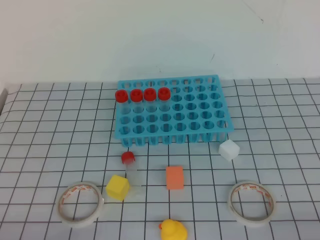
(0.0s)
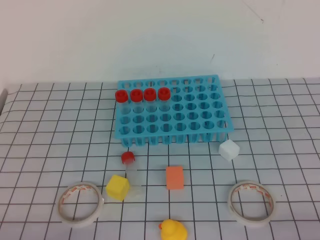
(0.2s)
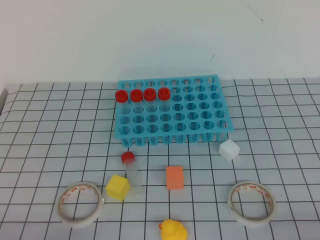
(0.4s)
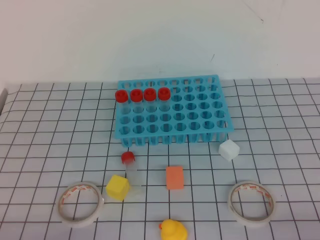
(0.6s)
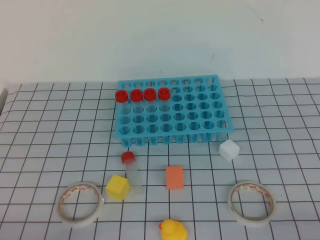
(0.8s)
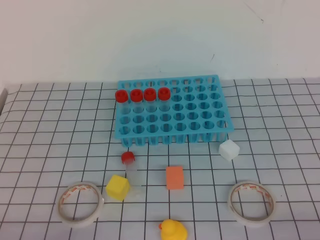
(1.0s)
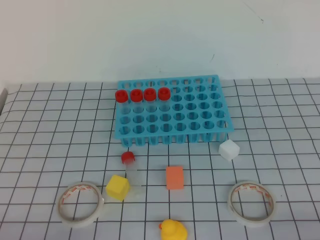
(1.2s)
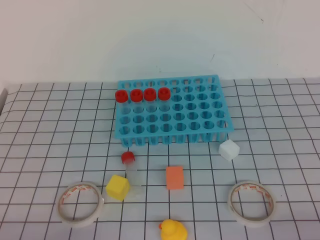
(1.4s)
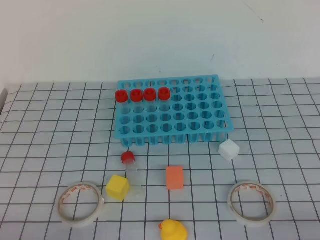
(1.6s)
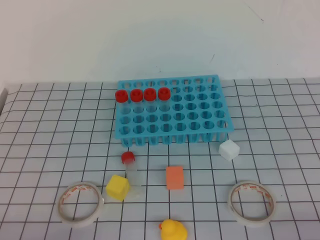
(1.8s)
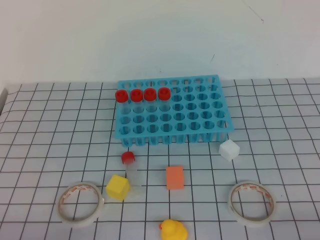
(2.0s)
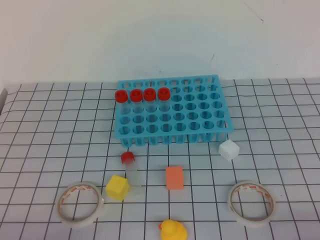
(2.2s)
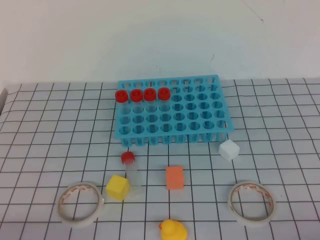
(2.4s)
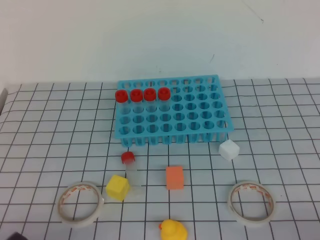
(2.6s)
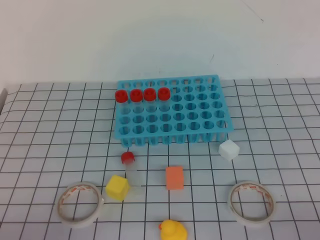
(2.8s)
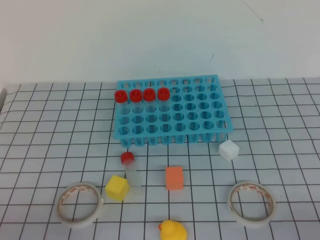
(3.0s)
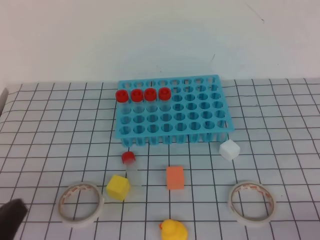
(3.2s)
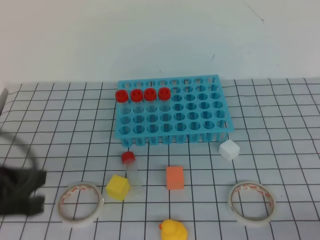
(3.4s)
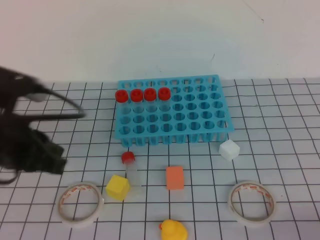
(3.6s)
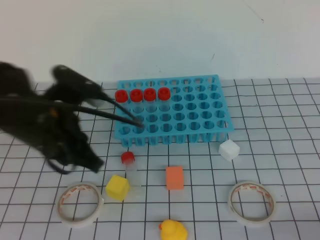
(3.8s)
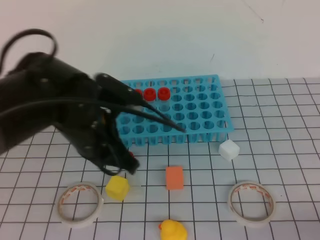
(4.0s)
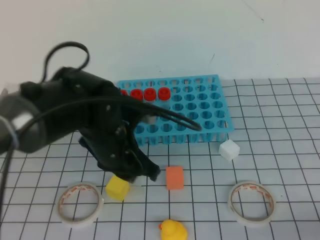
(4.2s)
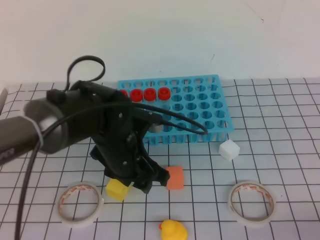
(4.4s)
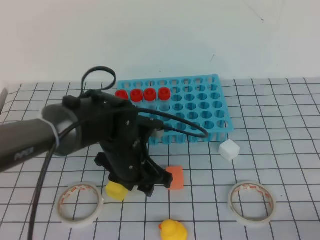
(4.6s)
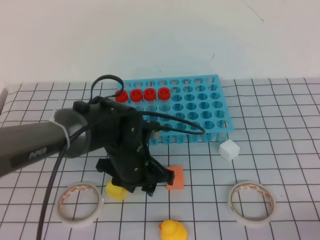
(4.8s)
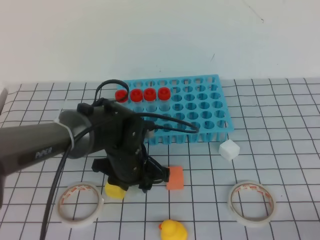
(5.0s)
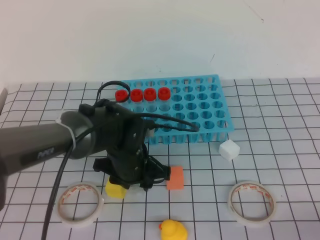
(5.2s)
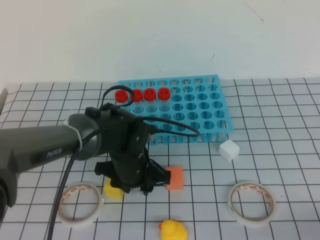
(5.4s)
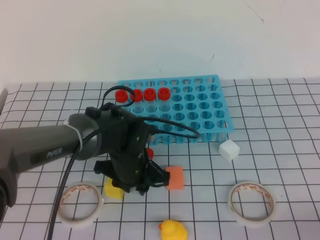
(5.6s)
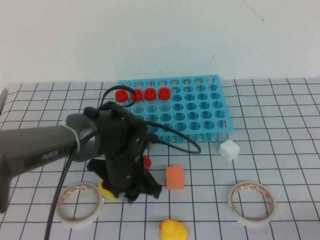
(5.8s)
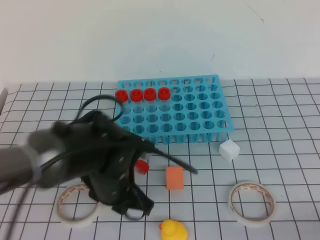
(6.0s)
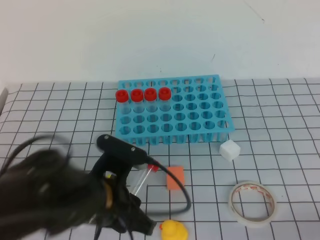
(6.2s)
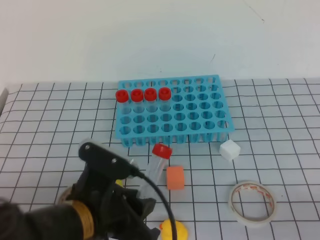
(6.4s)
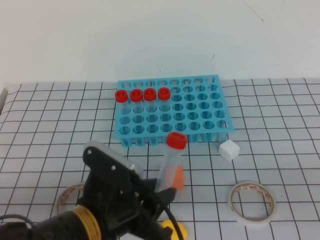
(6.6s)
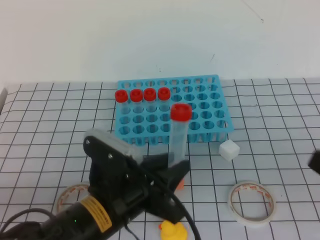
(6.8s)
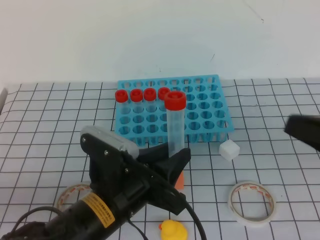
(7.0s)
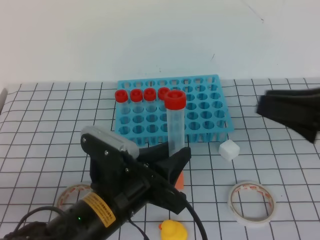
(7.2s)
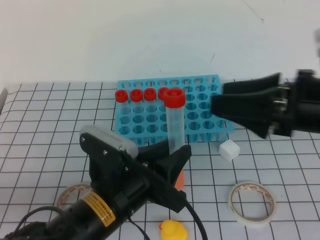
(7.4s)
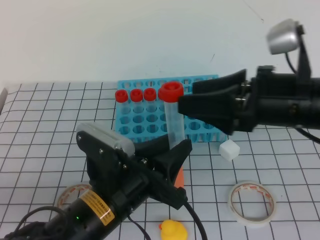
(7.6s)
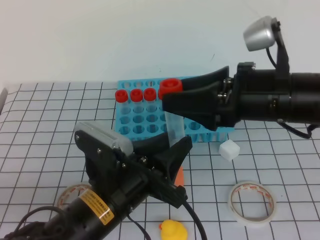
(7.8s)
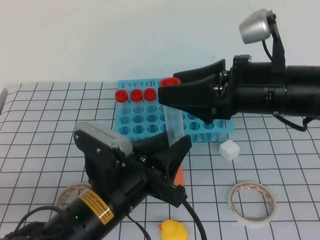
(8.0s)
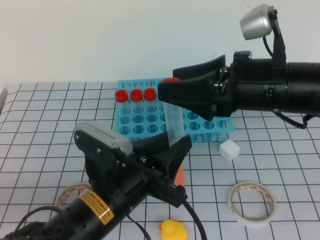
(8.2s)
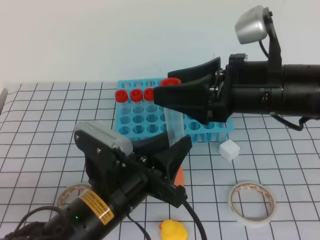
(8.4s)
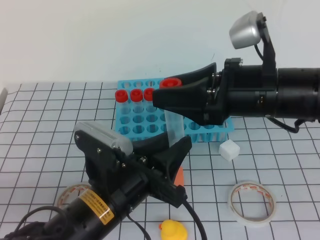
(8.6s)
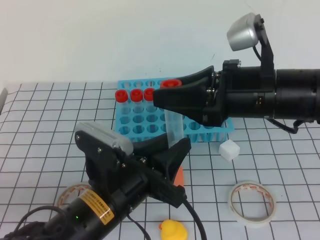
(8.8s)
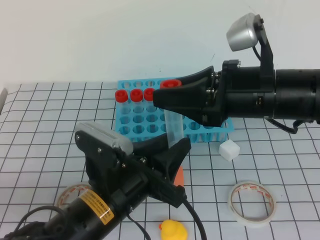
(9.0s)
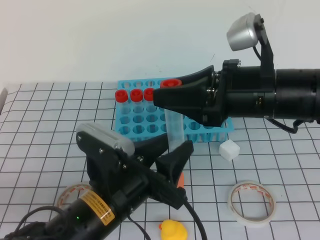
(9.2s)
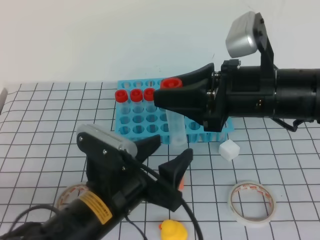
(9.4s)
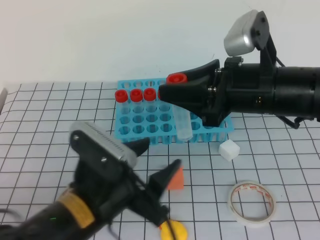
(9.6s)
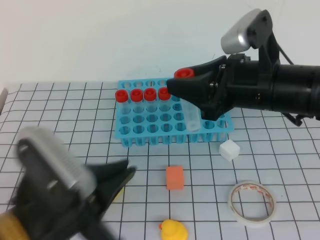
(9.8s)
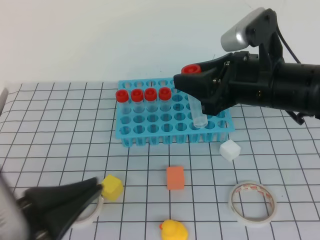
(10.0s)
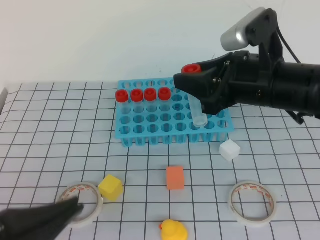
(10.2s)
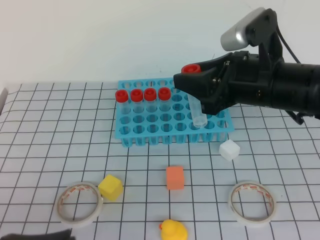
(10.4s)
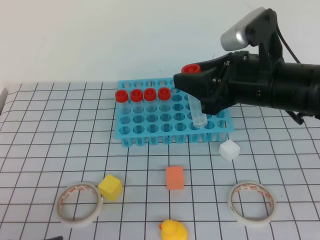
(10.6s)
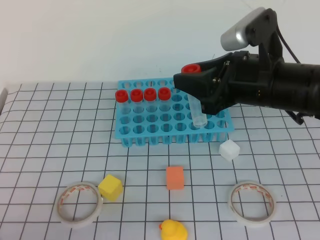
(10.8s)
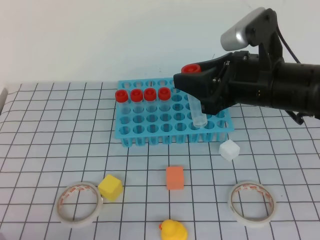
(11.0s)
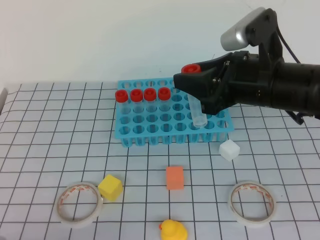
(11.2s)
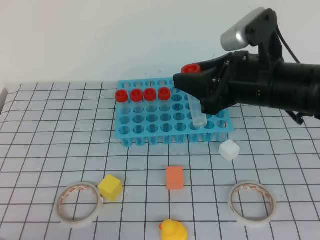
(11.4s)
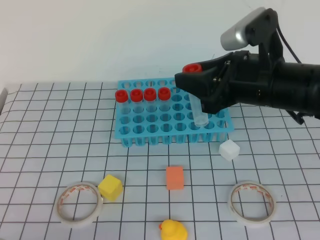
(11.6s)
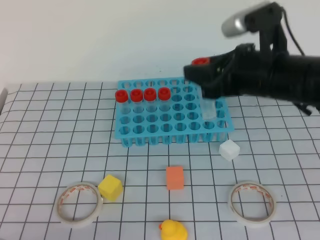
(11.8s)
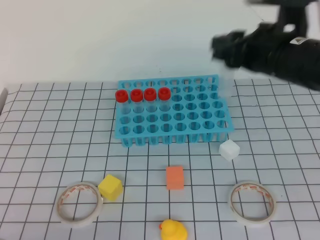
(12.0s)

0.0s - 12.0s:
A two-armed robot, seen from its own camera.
0.0s - 1.6s: Neither gripper changes place.
3.0s - 4.4s: The left gripper shifts roughly 30 cm forward and to the right, and opens up.
6.0s - 7.6s: The right gripper heads forward, to the left and upward, covering about 30 cm, and opens. Meanwhile the left gripper is displaced backward by some 10 cm.
7.6s - 9.0s: The right gripper closes its fingers.
9.0s - 10.4s: The left gripper heads backward, to the left and upward, covering about 20 cm, and closes its fingers.
10.4s - 12.0s: The left gripper moves downward, some 10 cm.

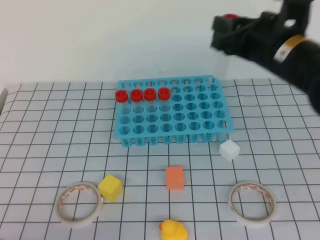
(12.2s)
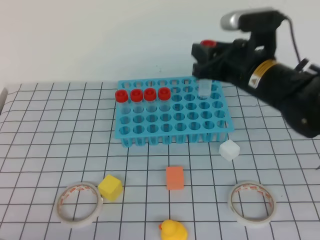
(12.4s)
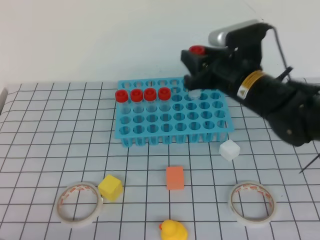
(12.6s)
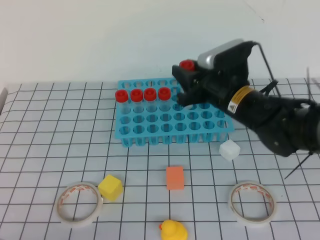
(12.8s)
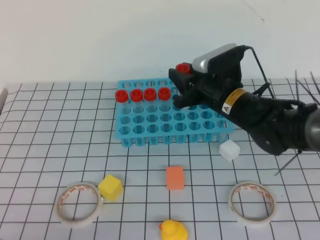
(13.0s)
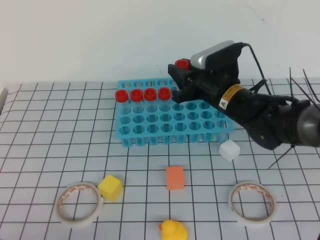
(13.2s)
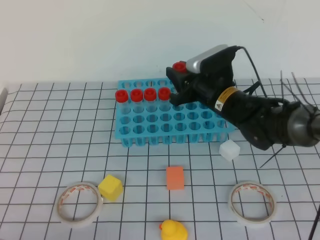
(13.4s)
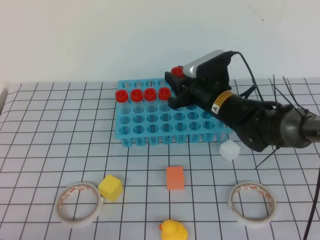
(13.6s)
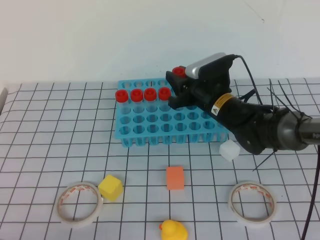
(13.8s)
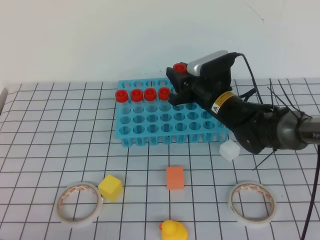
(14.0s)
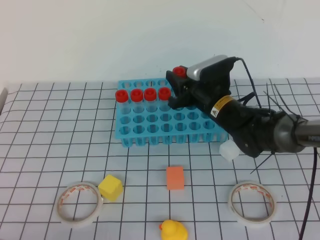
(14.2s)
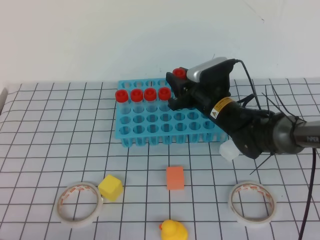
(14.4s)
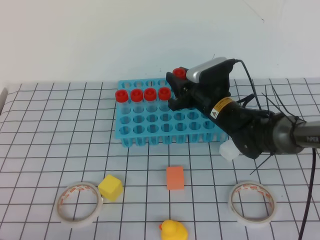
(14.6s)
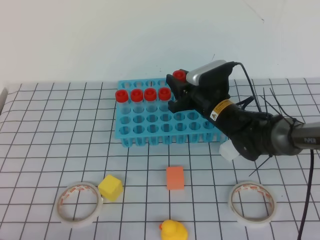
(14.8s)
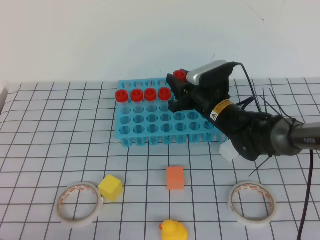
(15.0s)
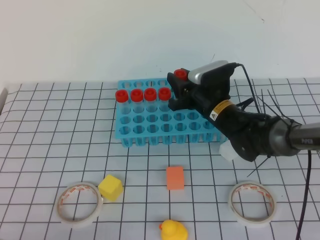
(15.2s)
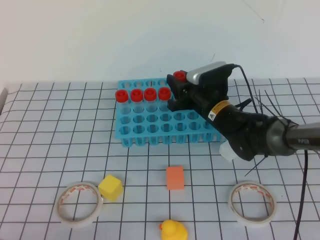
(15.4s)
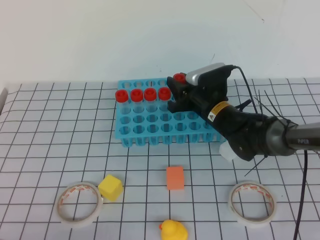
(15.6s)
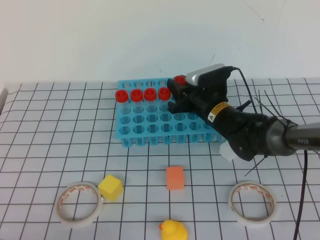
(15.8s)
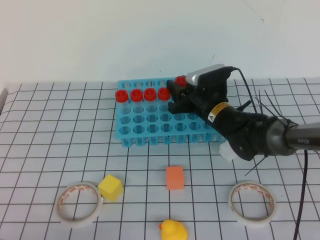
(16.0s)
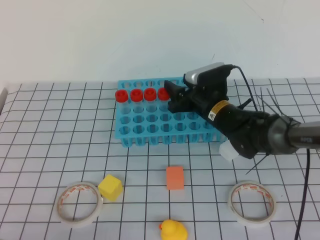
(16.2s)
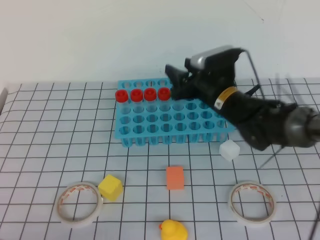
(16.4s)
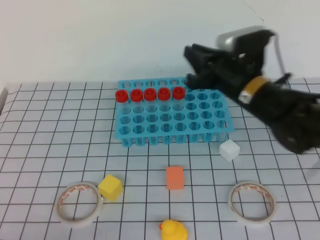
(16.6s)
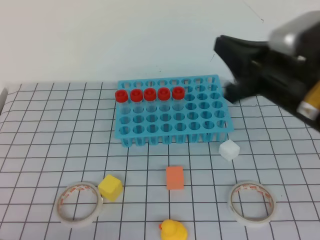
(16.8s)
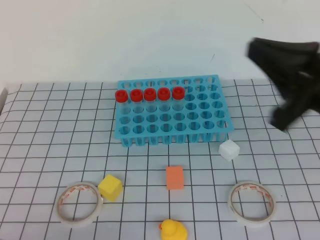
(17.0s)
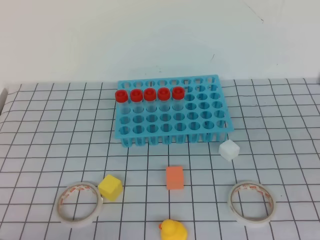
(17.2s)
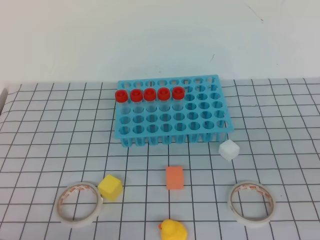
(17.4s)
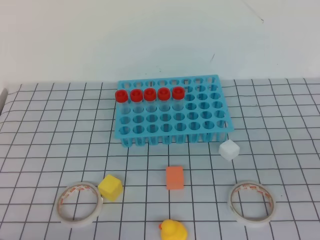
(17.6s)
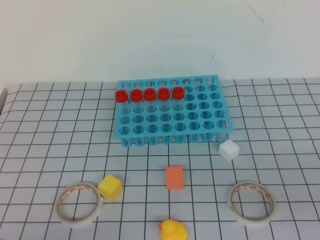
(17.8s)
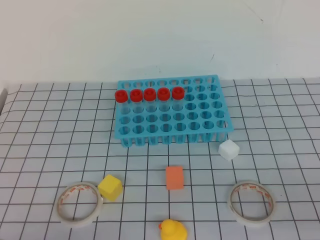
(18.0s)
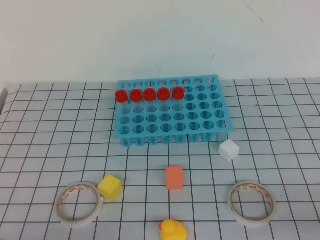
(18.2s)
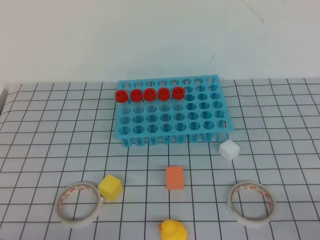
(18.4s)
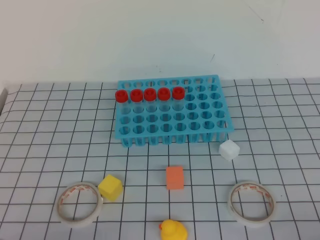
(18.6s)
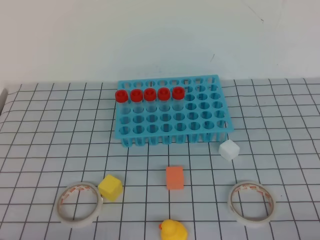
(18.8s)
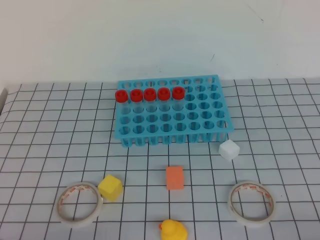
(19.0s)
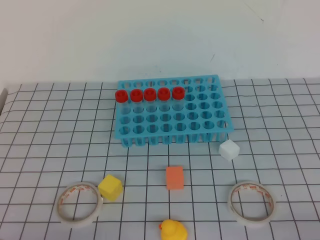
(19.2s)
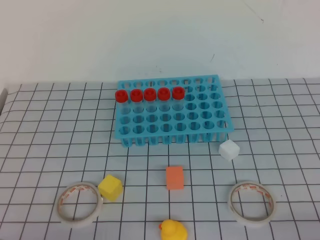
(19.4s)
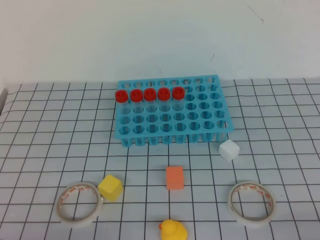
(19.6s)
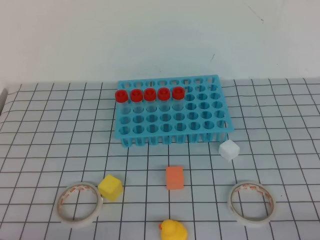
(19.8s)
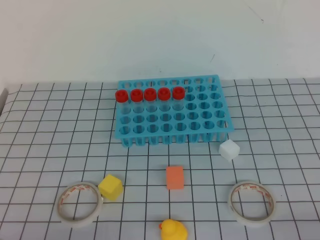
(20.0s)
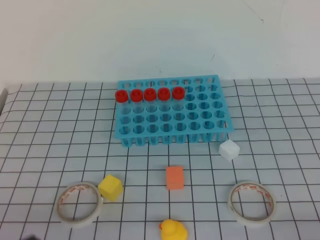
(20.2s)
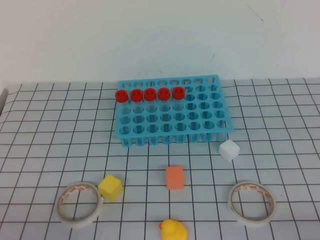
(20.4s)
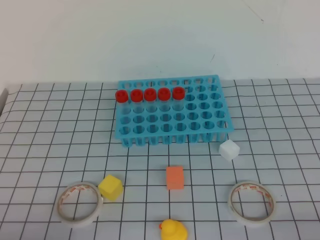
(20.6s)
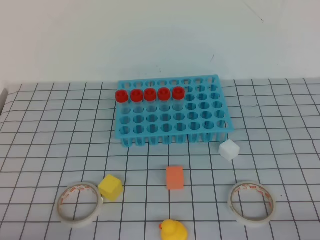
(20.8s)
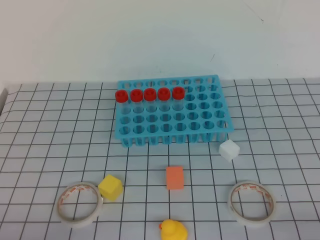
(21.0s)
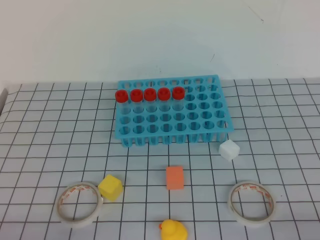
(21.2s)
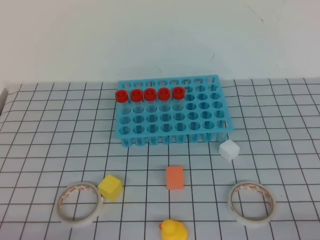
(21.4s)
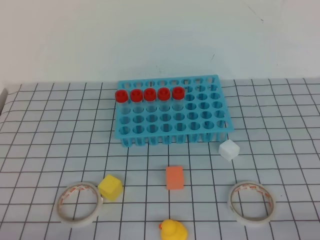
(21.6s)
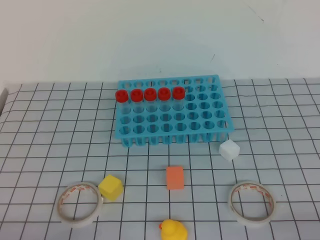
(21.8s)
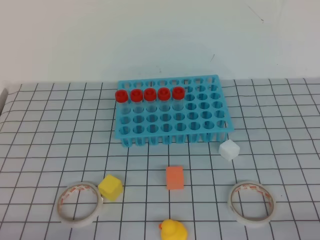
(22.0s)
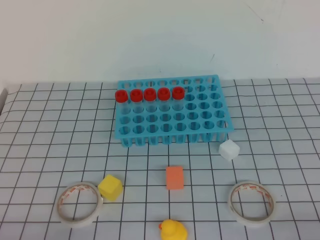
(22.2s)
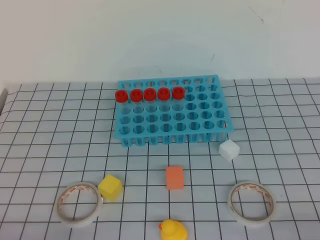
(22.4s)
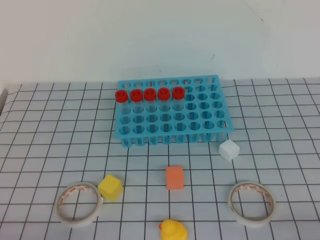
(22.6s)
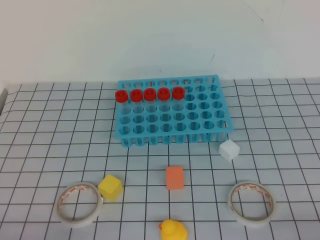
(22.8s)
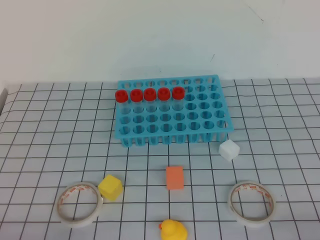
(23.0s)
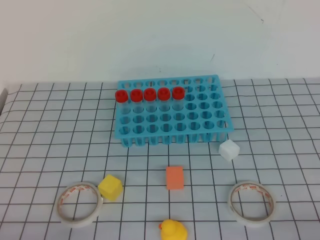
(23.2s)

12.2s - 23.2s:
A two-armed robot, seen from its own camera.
12.2s - 13.8s: The right gripper heads downward, forward and to the left, covering about 20 cm.
13.8s - 15.4s: The grippers stay close to where they were, moving slightly.
15.4s - 17.0s: The right gripper is displaced backward, upward and to the right by roughly 30 cm, and closes.
17.0s - 18.4s: The right gripper travels backward, downward and to the right by about 25 cm.
21.6s - 23.2s: The two grippers keep their place.
